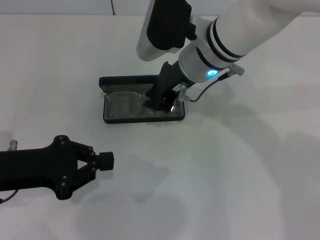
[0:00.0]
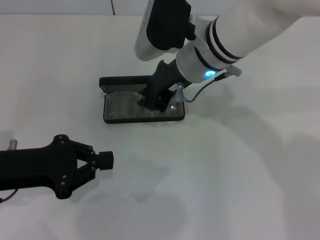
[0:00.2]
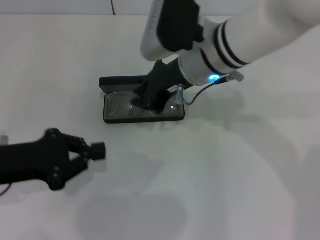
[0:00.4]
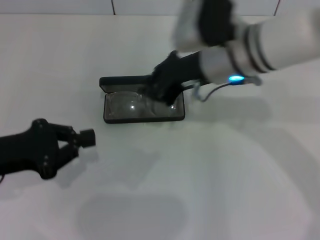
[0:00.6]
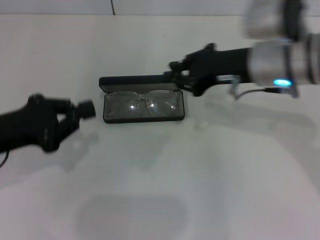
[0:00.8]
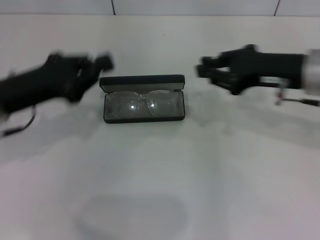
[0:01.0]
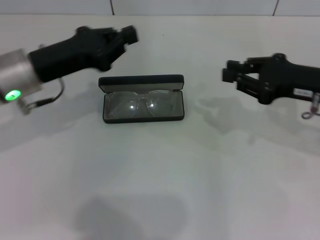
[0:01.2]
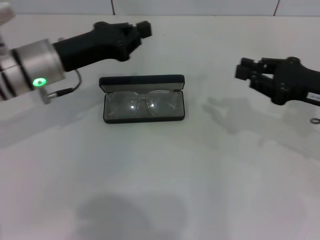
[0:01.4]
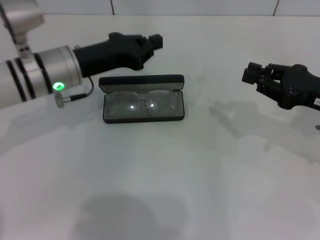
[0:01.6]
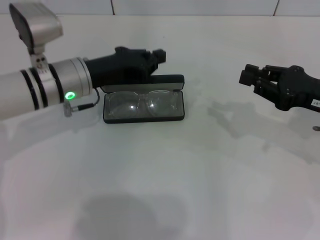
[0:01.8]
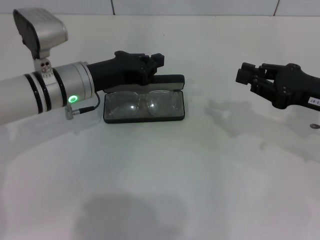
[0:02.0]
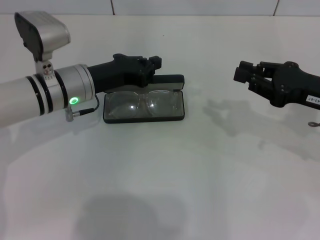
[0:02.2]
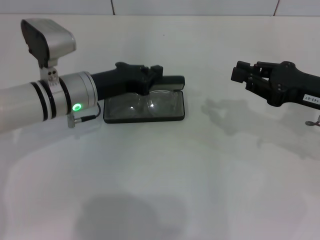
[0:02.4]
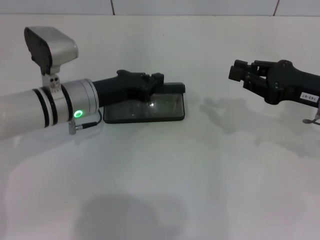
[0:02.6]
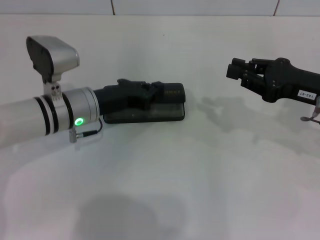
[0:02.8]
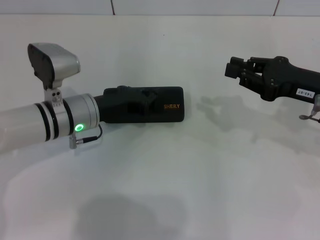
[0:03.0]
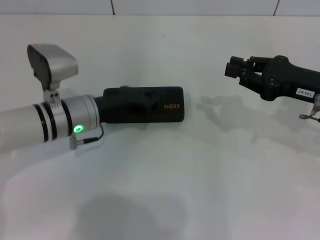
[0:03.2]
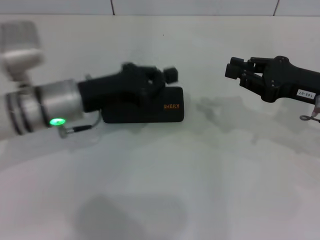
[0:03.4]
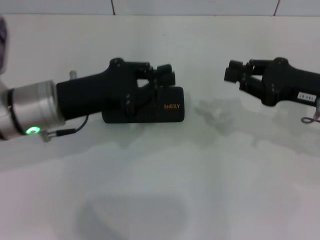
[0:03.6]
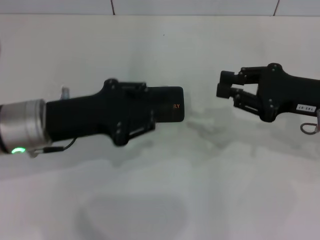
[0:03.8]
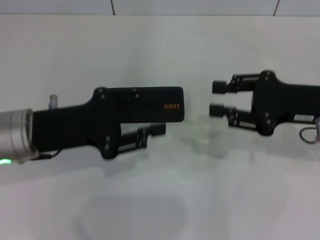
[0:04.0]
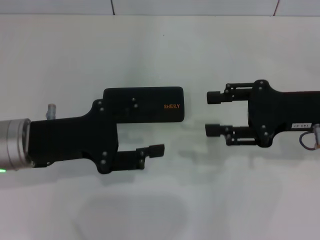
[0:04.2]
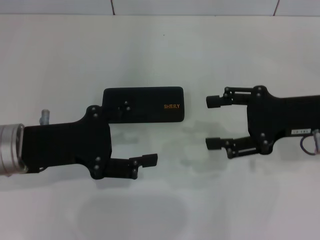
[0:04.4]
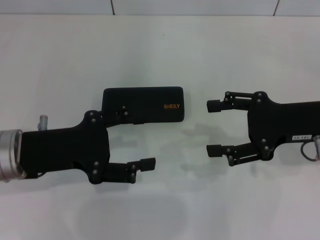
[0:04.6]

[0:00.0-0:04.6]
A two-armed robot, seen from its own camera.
Step, 0:00.4 to 0:02.8: Close the glasses case with your left hand.
0:00.0 to 0:01.6: The right gripper travels to the right by some 25 cm. The left gripper moves forward and to the right, approximately 15 cm.
0:01.6 to 0:03.0: The left gripper shifts some 5 cm downward.
0:03.0 to 0:04.6: The right gripper opens. Meanwhile the left gripper shifts some 15 cm backward, upward and to the left, and opens.

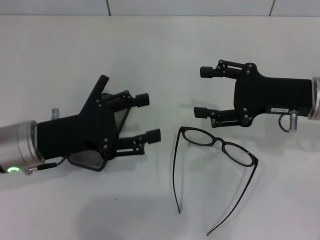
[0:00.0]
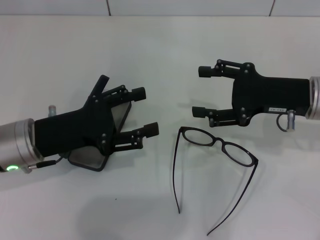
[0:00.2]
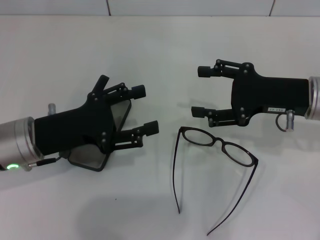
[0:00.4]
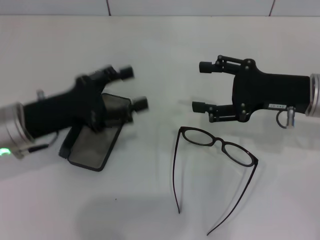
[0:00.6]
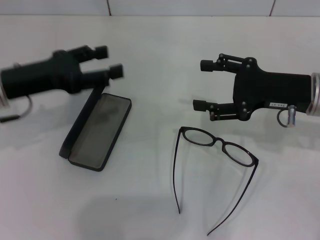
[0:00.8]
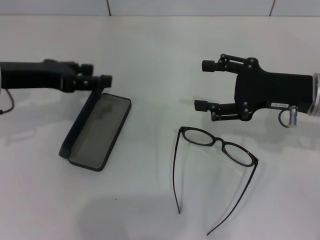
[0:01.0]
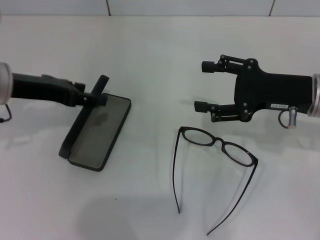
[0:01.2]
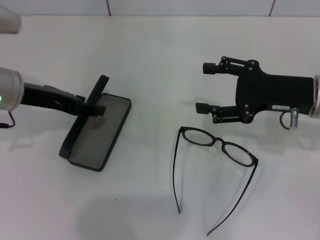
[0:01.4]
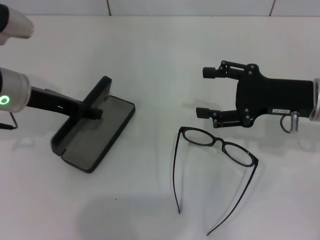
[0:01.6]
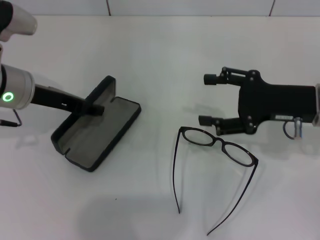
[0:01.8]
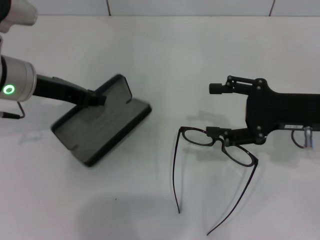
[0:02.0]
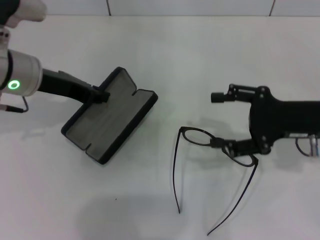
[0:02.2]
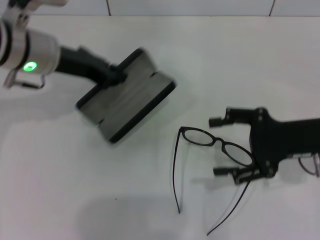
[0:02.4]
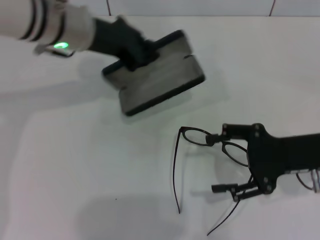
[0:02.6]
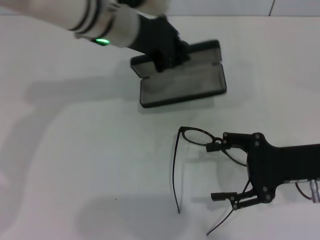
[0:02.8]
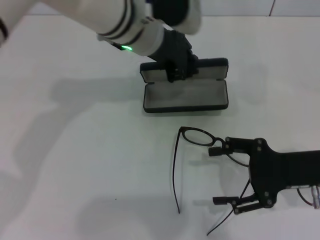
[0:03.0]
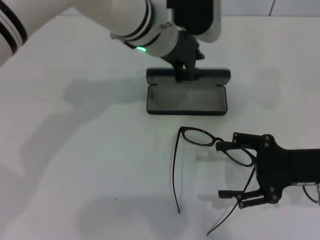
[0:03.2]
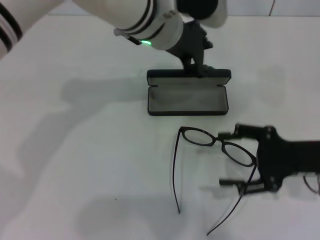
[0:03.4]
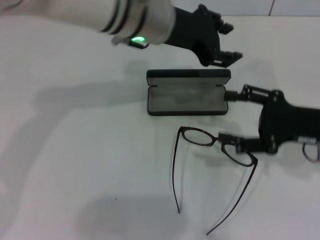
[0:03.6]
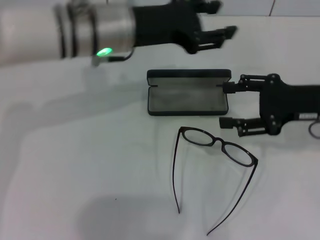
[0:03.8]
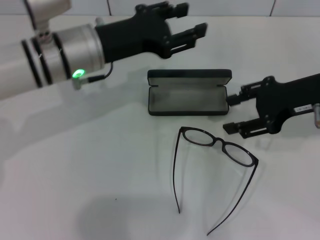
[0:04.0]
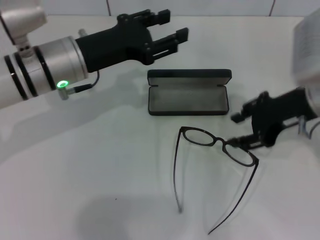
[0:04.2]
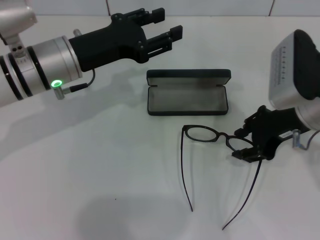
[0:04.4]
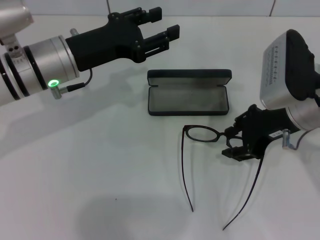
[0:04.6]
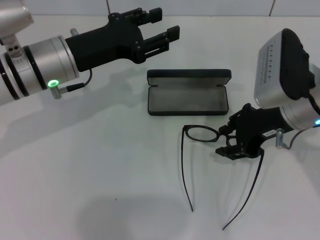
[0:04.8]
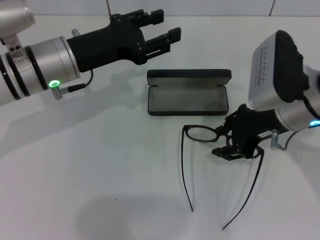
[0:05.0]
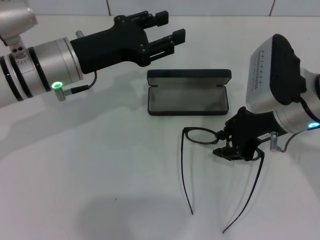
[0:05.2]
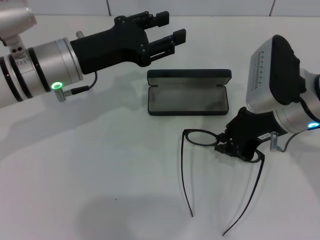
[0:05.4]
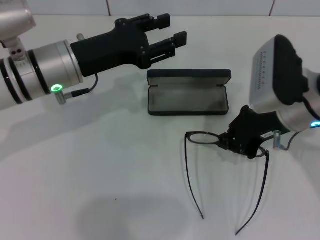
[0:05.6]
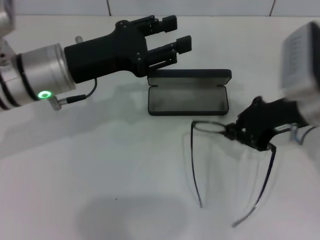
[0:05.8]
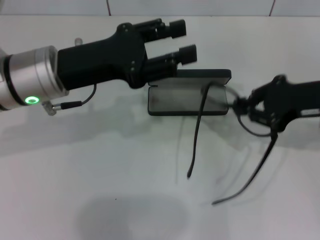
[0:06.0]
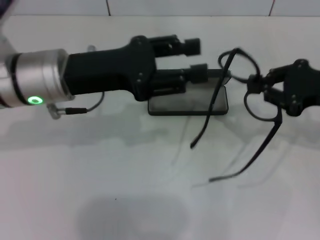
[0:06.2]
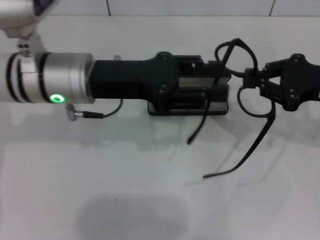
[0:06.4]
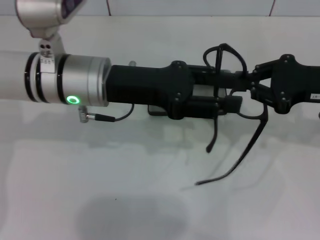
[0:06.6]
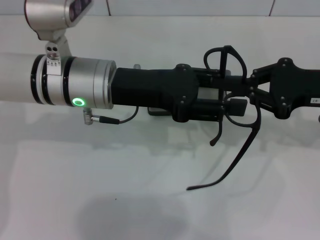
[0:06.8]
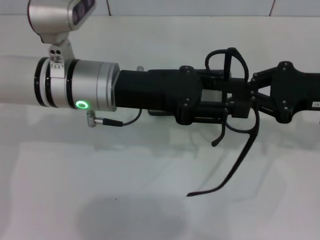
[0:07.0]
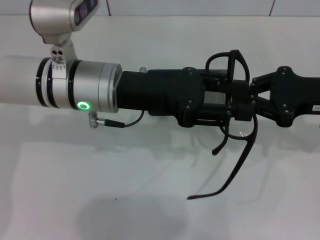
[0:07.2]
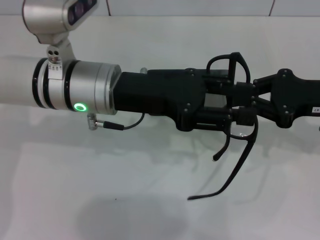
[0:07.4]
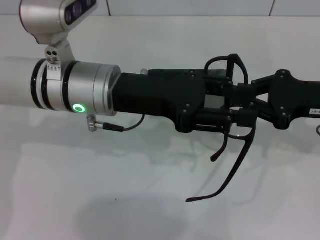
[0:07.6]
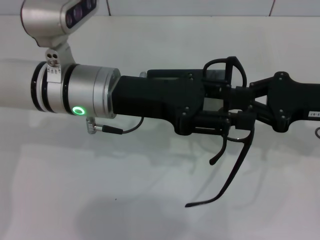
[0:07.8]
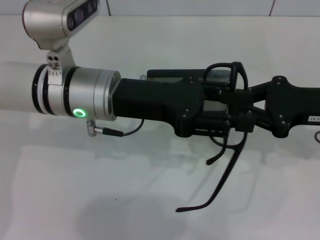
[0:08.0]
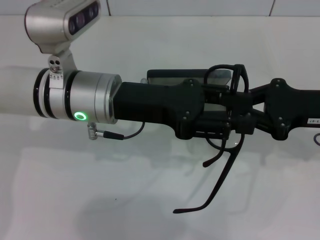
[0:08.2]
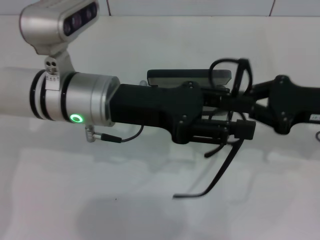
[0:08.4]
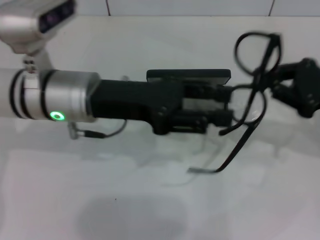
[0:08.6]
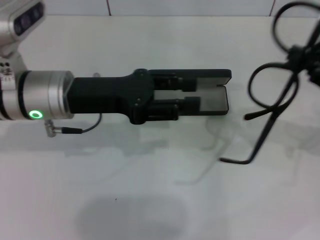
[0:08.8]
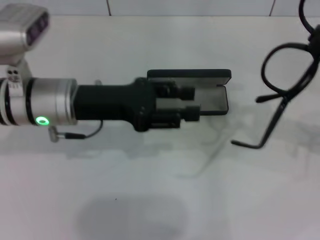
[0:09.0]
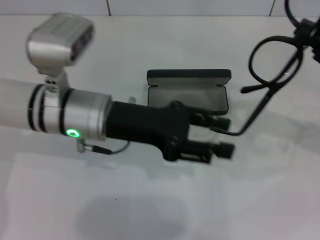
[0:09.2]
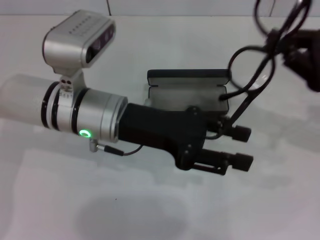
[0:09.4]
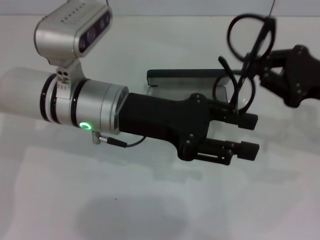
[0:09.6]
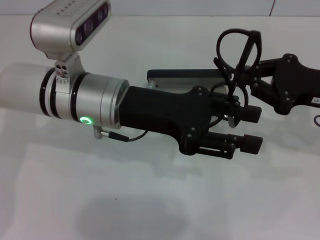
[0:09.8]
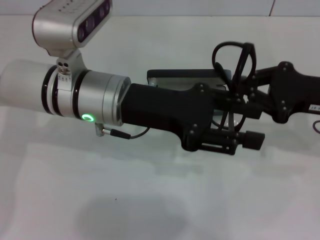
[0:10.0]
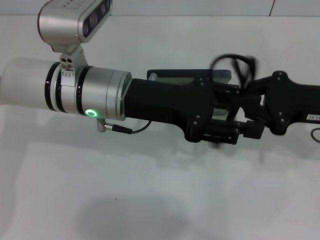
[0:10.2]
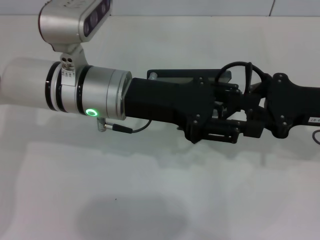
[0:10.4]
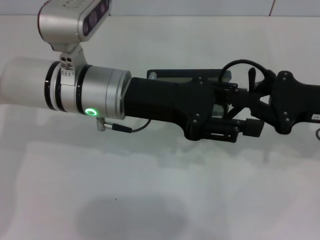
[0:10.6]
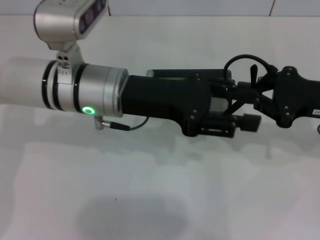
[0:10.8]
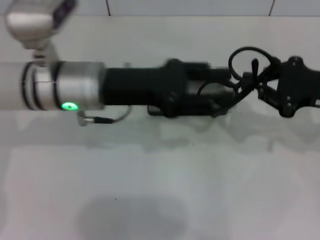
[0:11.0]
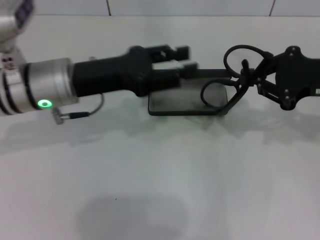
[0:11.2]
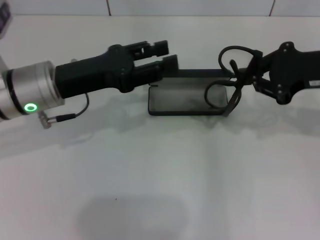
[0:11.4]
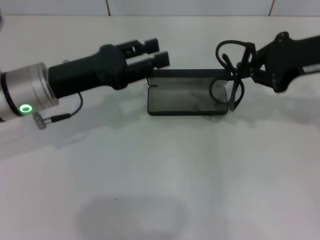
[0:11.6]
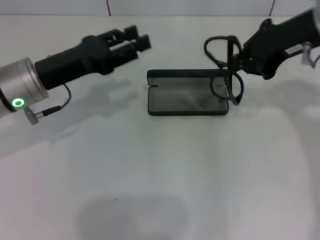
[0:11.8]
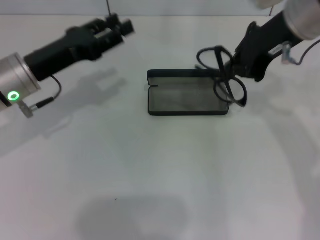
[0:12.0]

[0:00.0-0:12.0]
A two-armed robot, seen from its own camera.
Step, 0:00.0 to 0:02.0: Grab the glasses case with your left hand.
Step, 0:02.2 to 0:03.0: Place the glasses case in the center of the table with your left hand.
Step, 0:03.4 to 0:05.4: Grab the eyeglass frame with your right hand.
Step, 0:05.6 to 0:10.2: Fold the frame with your left hand.
0:00.0 to 0:01.6: The left gripper shifts approximately 10 cm forward and upward.
0:01.6 to 0:03.0: The right gripper shifts roughly 5 cm backward. The left gripper is displaced to the right by roughly 20 cm, and closes.
0:03.0 to 0:04.4: The left gripper heads to the left and backward, covering approximately 15 cm, and opens its fingers. Meanwhile the right gripper is displaced upward, forward and to the left by about 10 cm.
0:04.4 to 0:06.0: The right gripper shifts some 5 cm to the right, and closes.
0:06.0 to 0:07.6: The left gripper shifts roughly 5 cm to the right.
0:07.6 to 0:09.0: The right gripper shifts roughly 5 cm to the right. The left gripper goes about 5 cm to the left.
0:09.0 to 0:10.4: The left gripper moves to the right, roughly 5 cm, while the right gripper shifts approximately 5 cm to the left.
0:10.4 to 0:12.0: The left gripper travels to the left by roughly 15 cm; the right gripper shifts some 20 cm upward, to the left and forward.

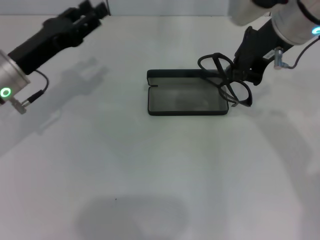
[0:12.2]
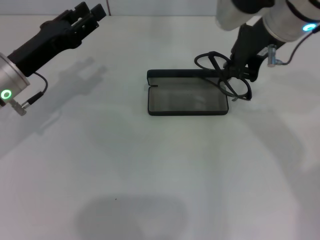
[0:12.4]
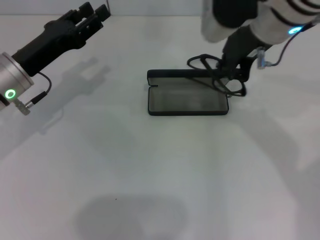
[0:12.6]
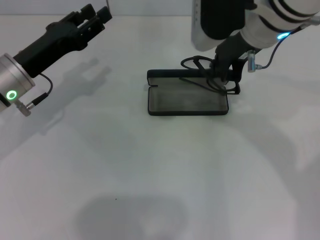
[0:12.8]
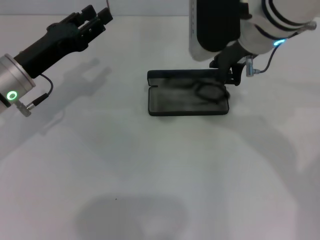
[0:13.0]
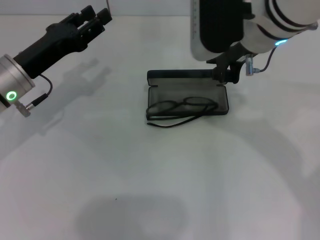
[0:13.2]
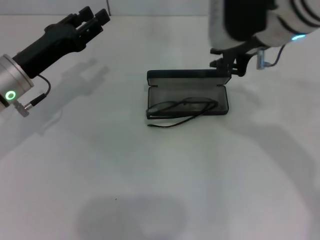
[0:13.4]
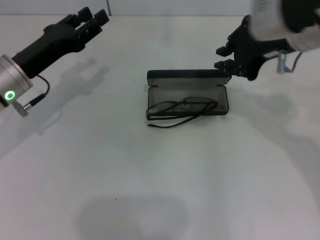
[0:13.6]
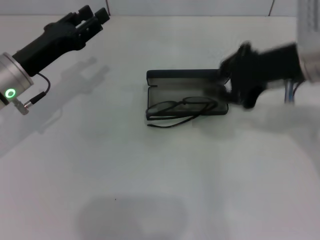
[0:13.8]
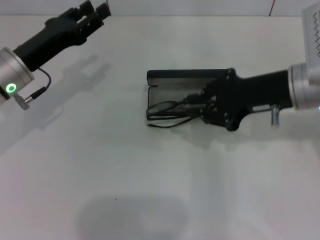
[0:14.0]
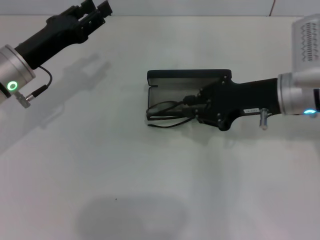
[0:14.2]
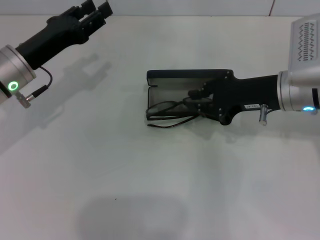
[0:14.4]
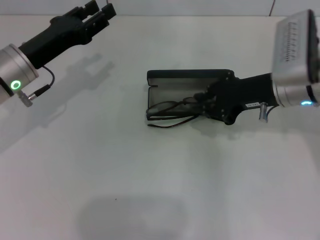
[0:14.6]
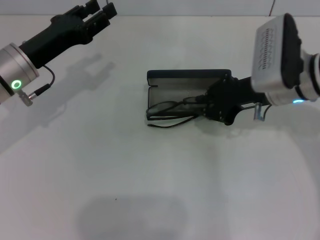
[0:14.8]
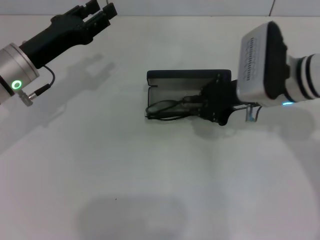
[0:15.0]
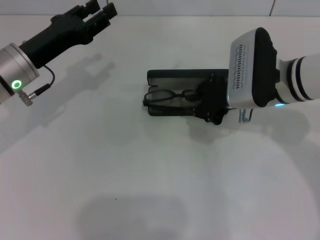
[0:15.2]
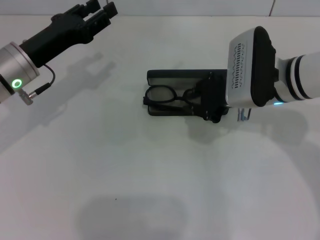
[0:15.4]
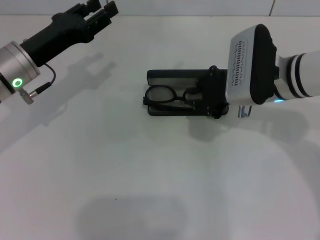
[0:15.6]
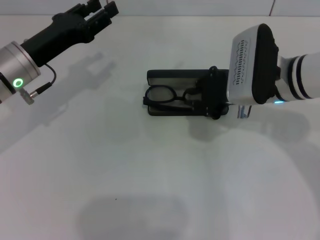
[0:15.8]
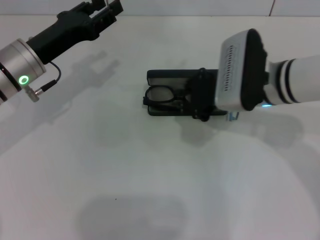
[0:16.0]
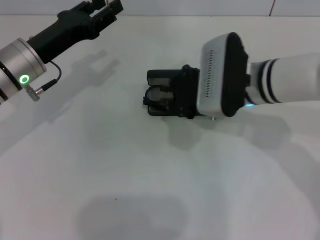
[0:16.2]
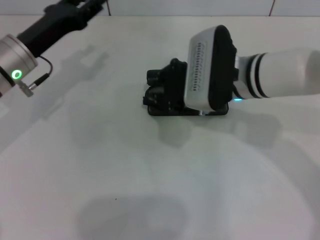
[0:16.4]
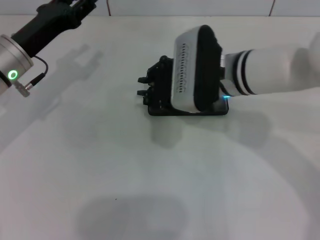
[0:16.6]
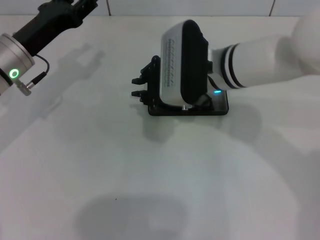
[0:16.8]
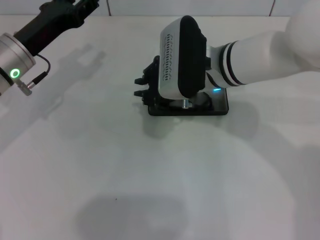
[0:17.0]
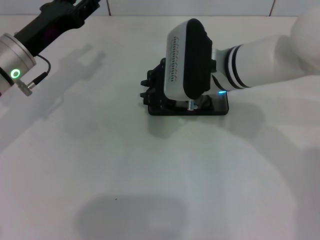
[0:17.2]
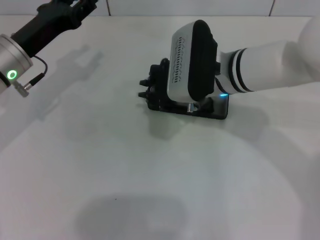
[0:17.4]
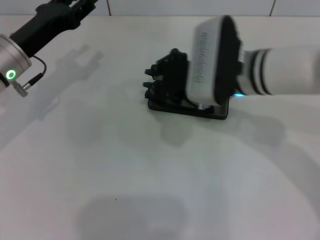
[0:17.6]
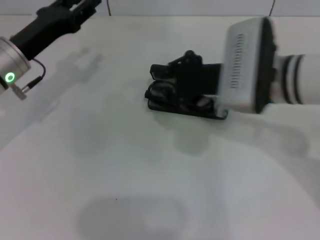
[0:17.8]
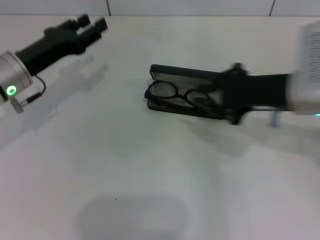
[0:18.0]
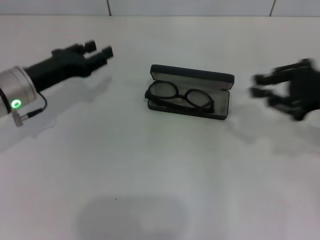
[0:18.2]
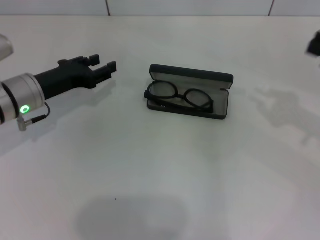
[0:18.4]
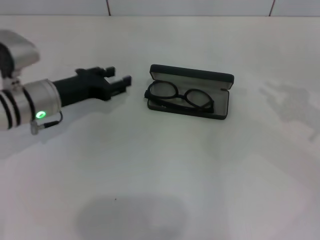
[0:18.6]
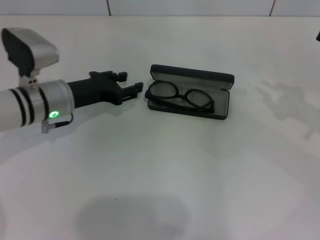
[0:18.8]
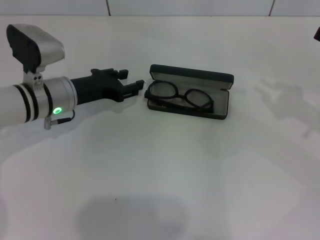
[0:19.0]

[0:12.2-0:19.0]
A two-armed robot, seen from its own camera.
0:12.2 to 0:13.6: The grippers stay close to where they were, moving slightly.
0:13.6 to 0:15.0: The right gripper shifts about 10 cm downward.
0:15.0 to 0:16.2: The right gripper travels to the left by some 5 cm.
0:16.2 to 0:17.6: The grippers make only small movements.
0:17.6 to 0:19.0: The left gripper travels downward by some 5 cm, while the right gripper moves to the right, roughly 25 cm.
